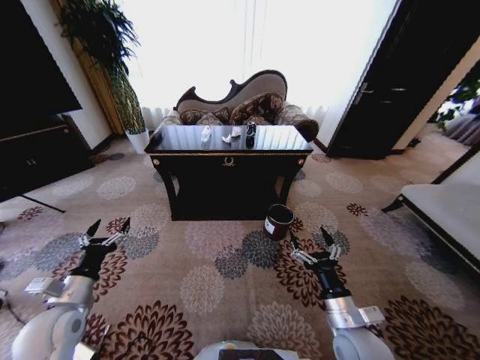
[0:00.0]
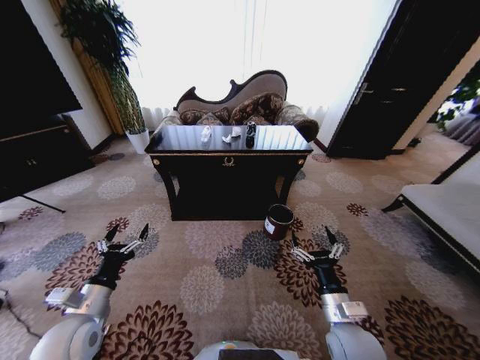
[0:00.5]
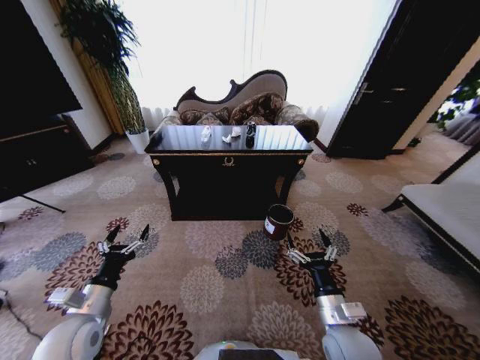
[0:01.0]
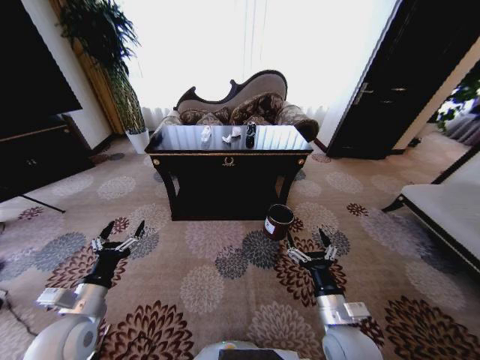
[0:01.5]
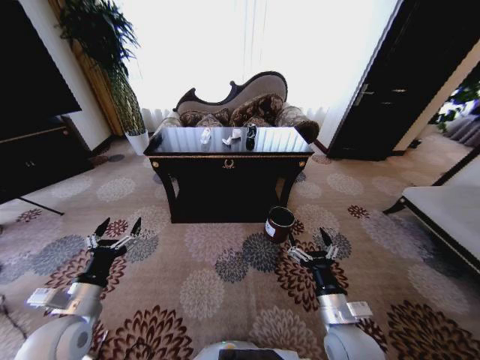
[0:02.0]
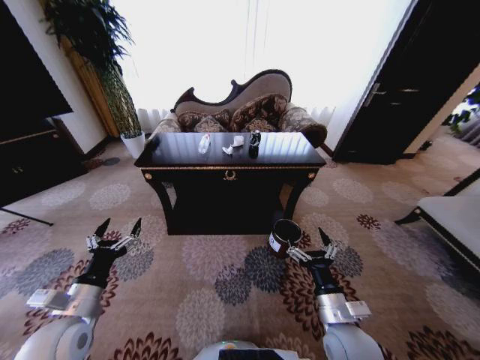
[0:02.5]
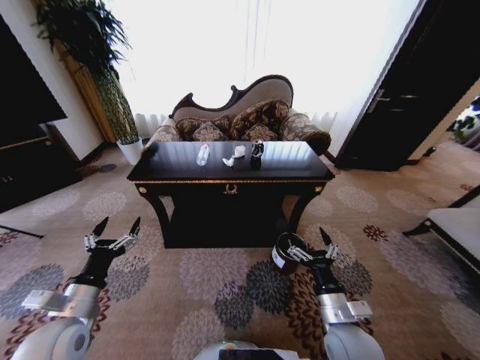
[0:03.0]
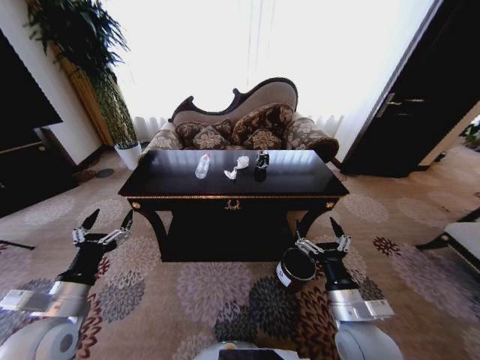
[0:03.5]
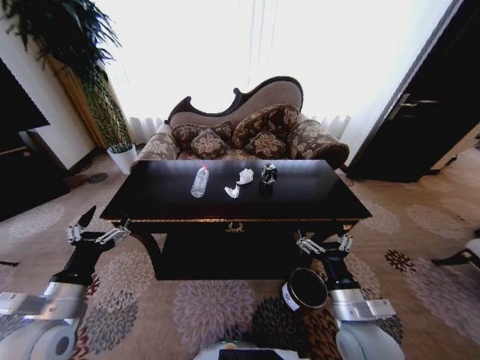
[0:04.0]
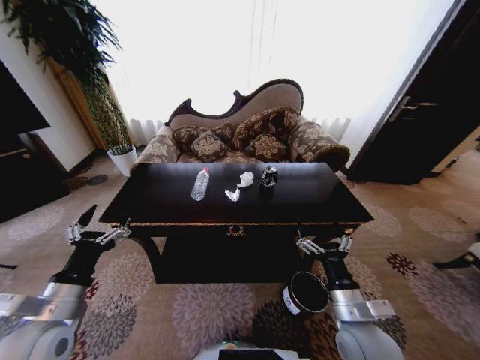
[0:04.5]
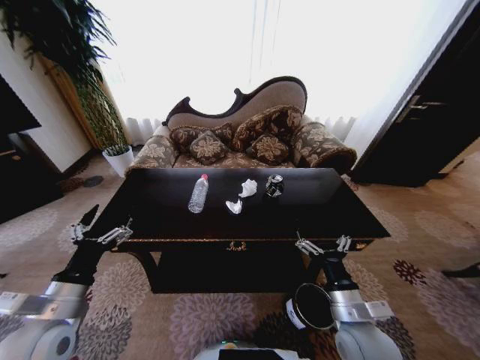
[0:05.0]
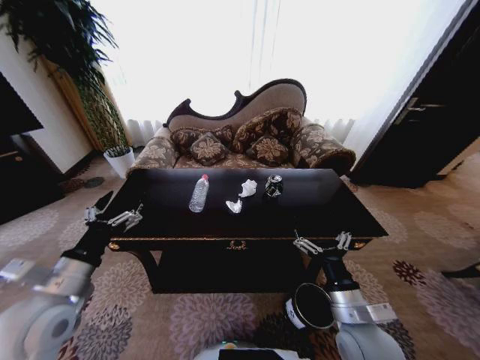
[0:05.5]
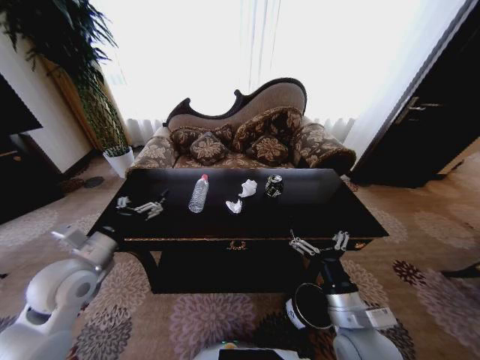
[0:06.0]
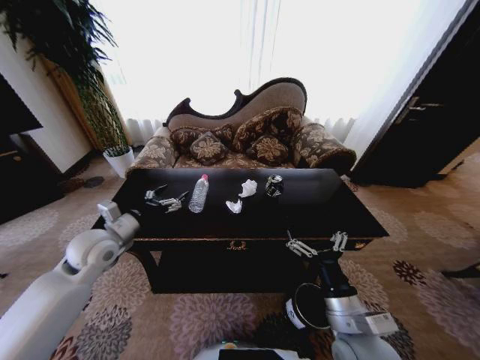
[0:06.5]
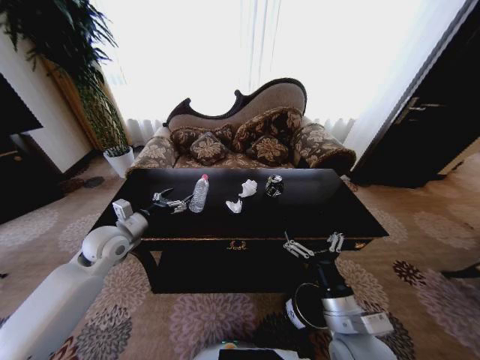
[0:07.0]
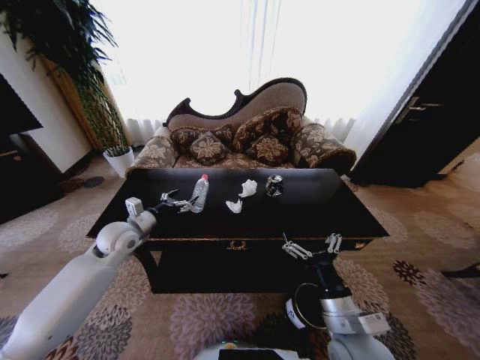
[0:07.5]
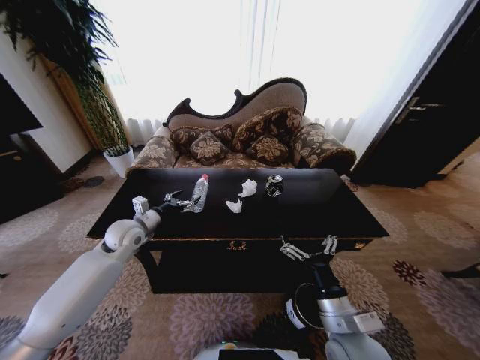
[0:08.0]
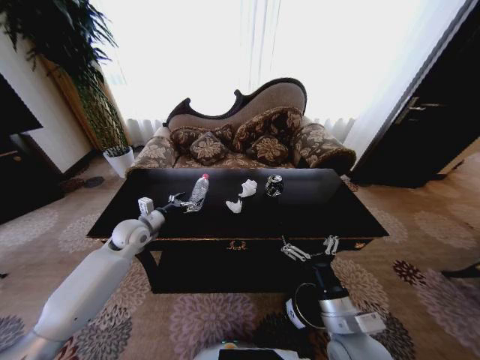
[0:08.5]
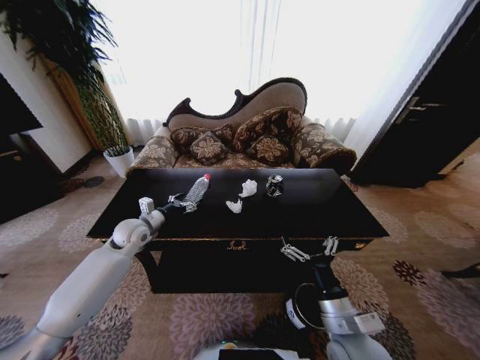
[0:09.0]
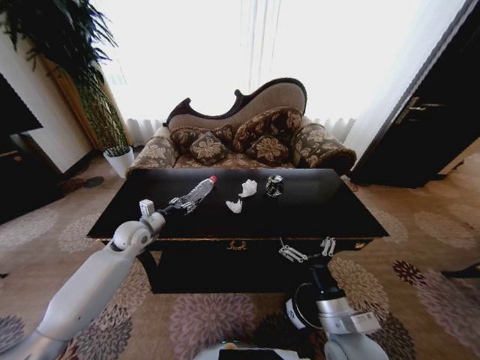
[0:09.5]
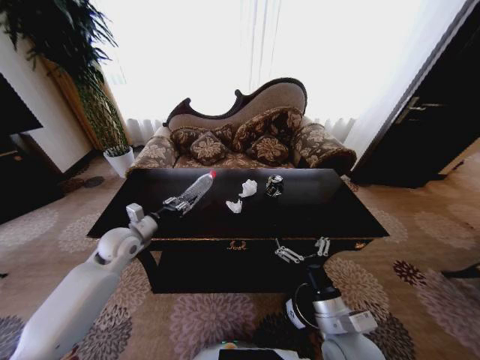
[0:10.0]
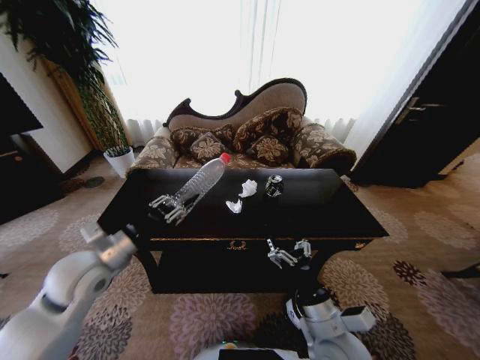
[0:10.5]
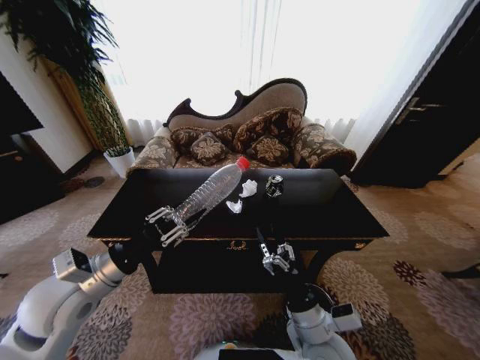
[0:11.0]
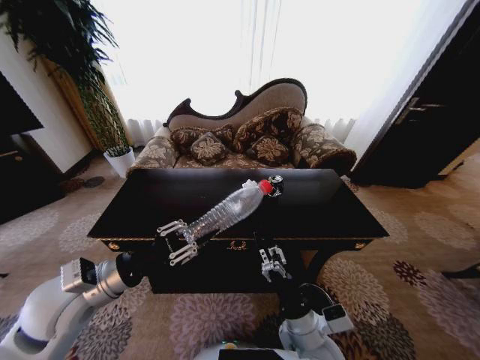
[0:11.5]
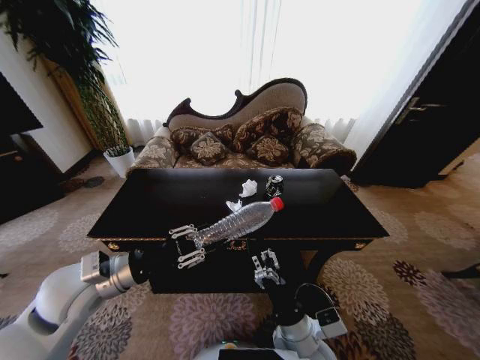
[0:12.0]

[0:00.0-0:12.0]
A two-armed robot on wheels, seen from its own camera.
Task of the whole recording: Move to the front of the table and place the trash on the table into the trash bin.
4.0 to 6.0 s: The left gripper moves forward, roughly 10 cm.
6.0 to 8.0 s: The left gripper travels forward by roughly 15 cm.
8.0 to 10.0 s: The left gripper closes its fingers.
10.0 to 12.0 s: The right gripper heads to the left, covering about 5 cm, while the left gripper travels backward and upward by about 15 cm.

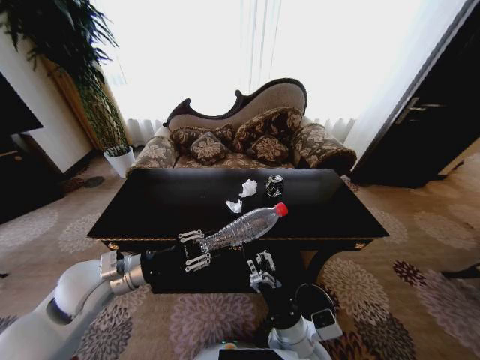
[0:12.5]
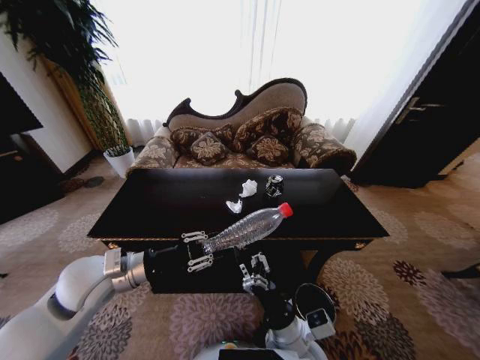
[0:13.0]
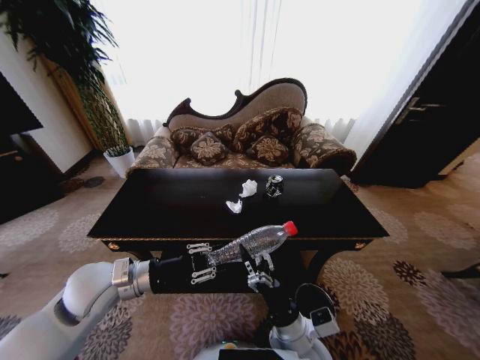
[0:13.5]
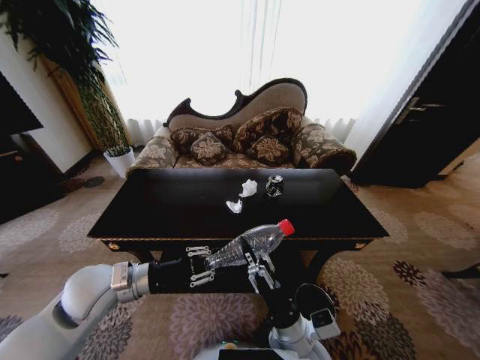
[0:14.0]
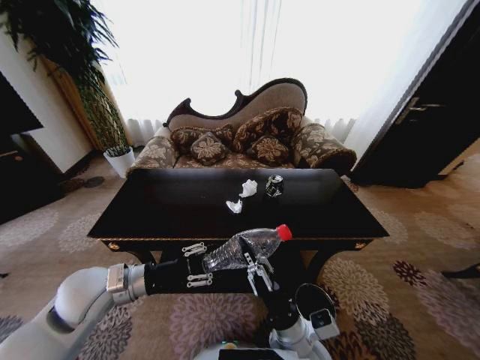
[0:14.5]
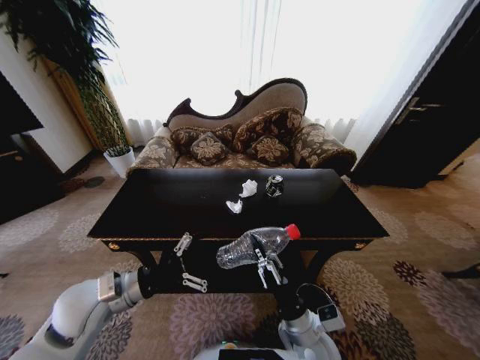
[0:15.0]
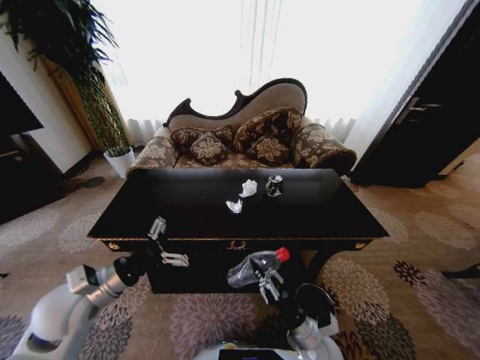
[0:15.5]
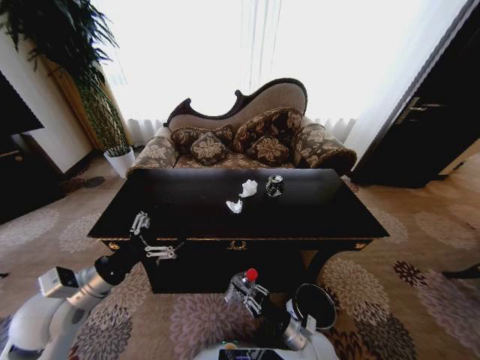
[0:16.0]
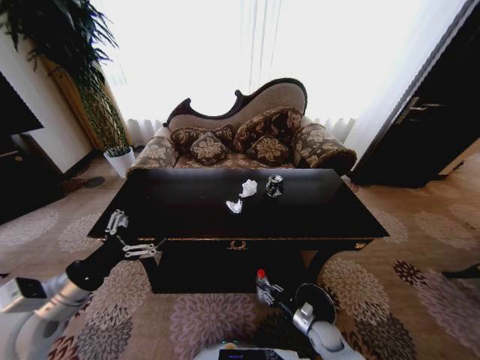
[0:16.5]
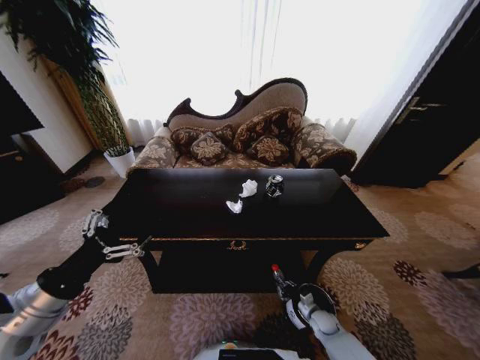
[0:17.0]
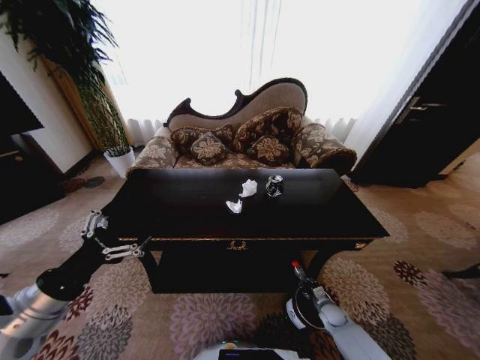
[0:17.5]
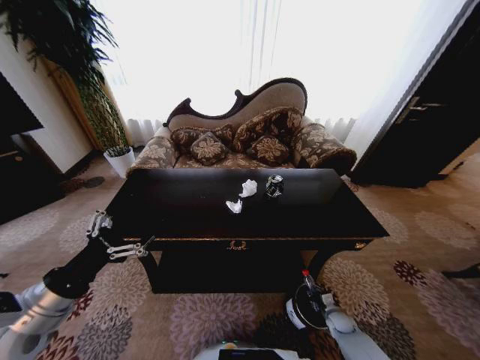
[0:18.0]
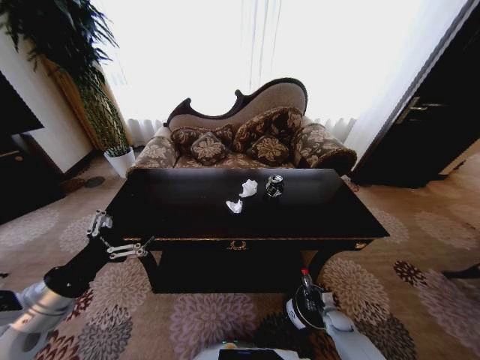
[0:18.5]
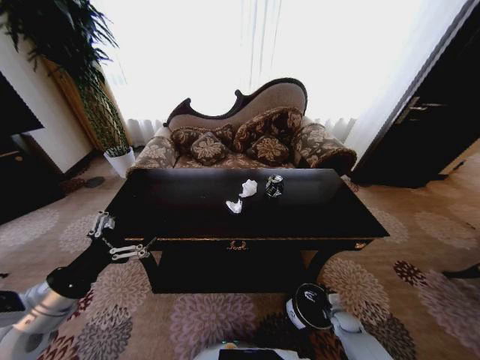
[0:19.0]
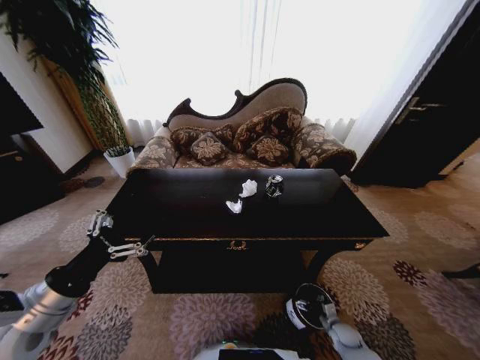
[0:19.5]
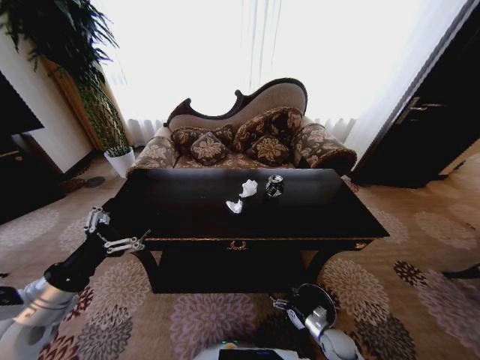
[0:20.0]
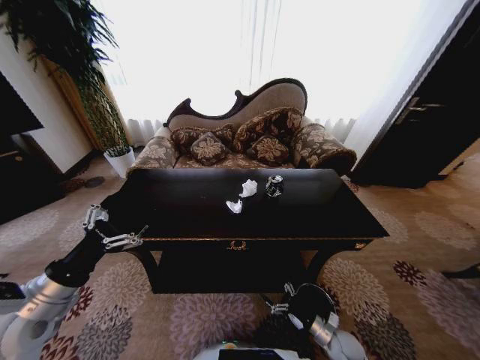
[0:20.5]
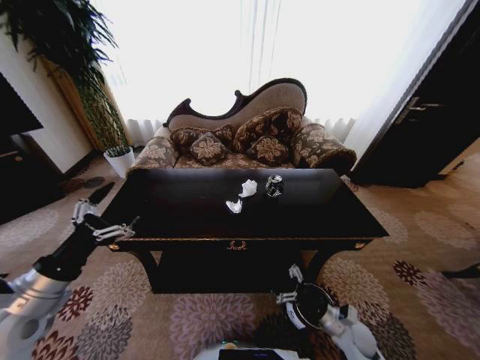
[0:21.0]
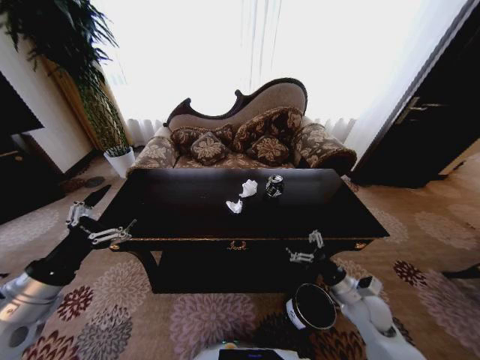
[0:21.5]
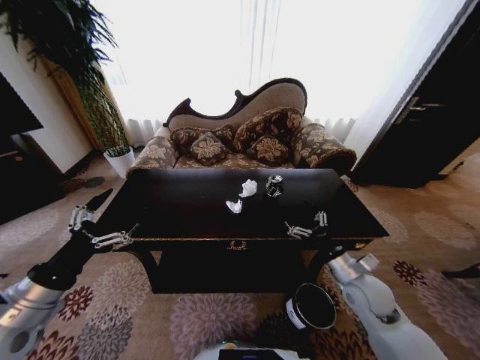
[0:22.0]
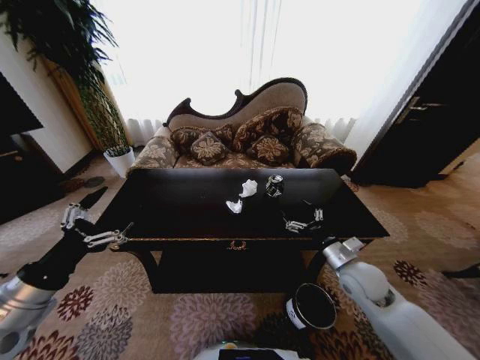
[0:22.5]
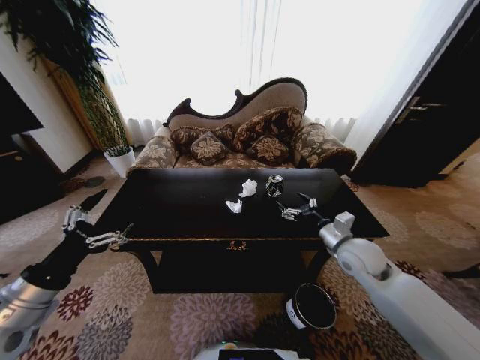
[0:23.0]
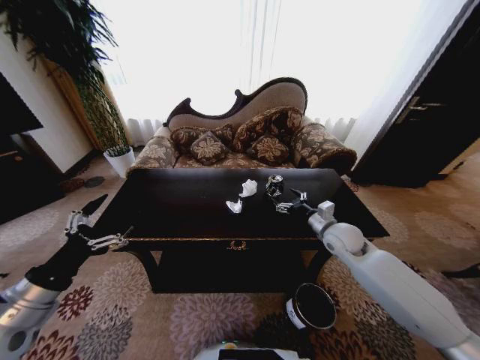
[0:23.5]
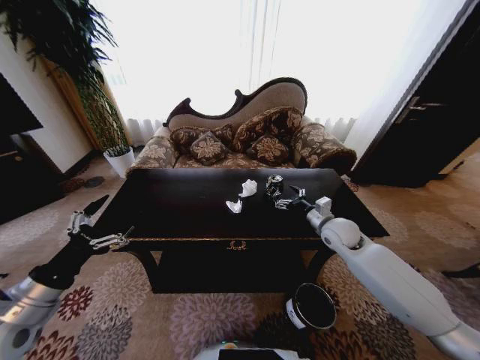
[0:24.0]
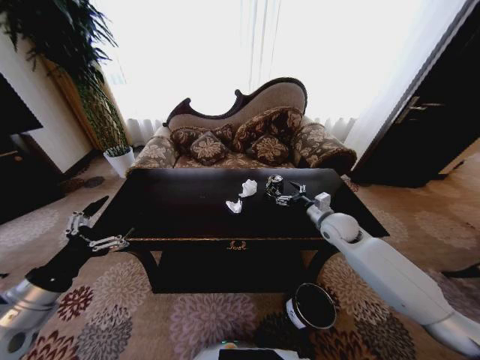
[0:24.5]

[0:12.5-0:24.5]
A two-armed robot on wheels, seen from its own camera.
Task of the whole recording: Move to the front of the table and place the trash on the table into the trash bin.
12.5 to 14.5 s: The right gripper closes up.
14.5 to 16.5 s: The left gripper travels to the left and backward by some 10 cm, and opens up; the right gripper goes about 30 cm downward and to the right.
16.5 to 18.5 s: The right gripper shifts some 10 cm to the right and downward.
18.5 to 20.5 s: The right gripper travels upward, backward and to the left by approximately 15 cm, and opens.
20.5 to 22.5 s: The right gripper travels upward and forward by approximately 25 cm.
22.5 to 24.5 s: The right gripper is displaced forward by about 15 cm.

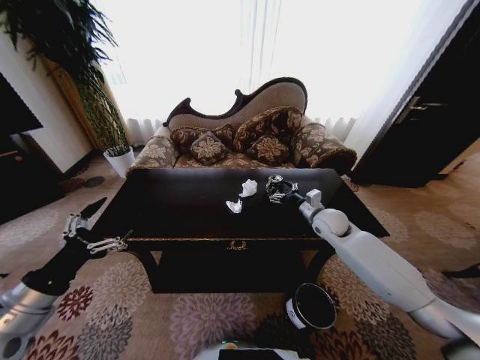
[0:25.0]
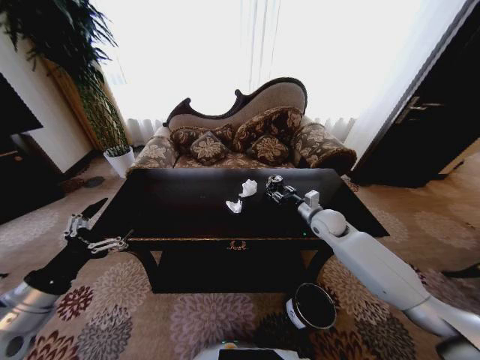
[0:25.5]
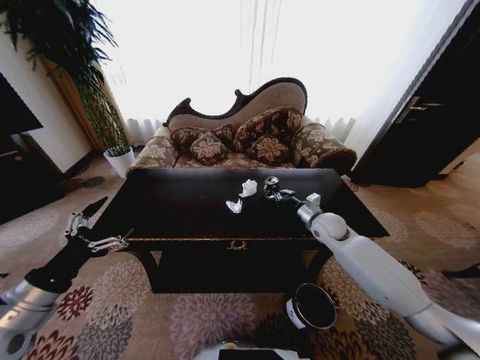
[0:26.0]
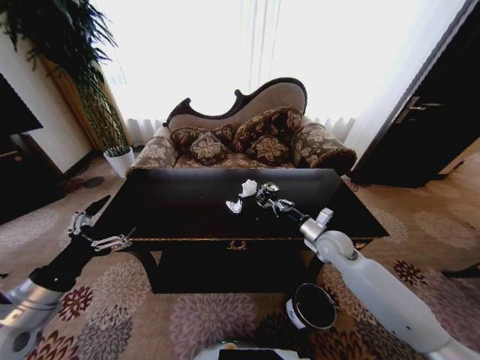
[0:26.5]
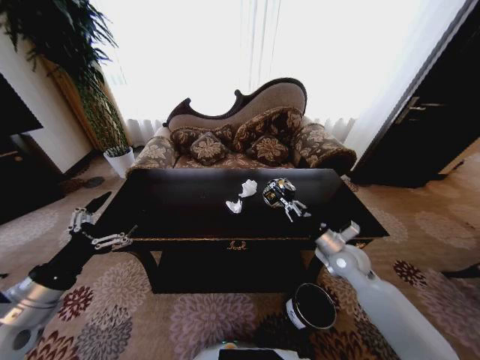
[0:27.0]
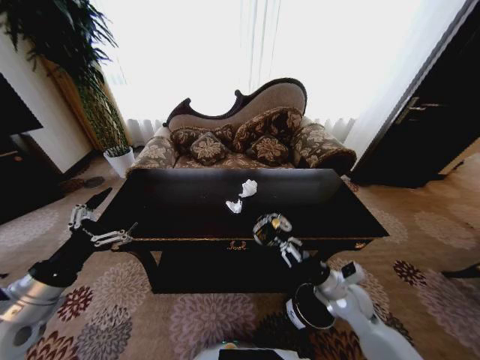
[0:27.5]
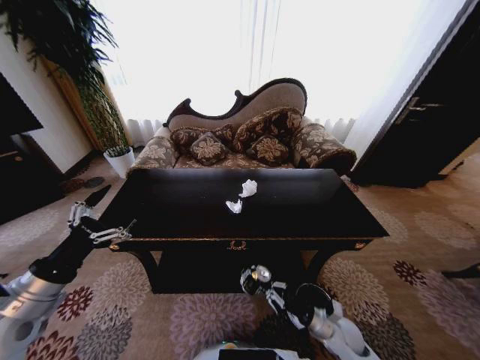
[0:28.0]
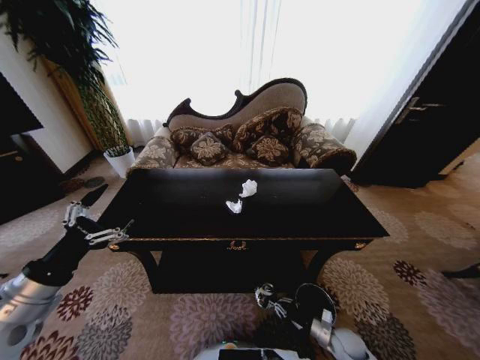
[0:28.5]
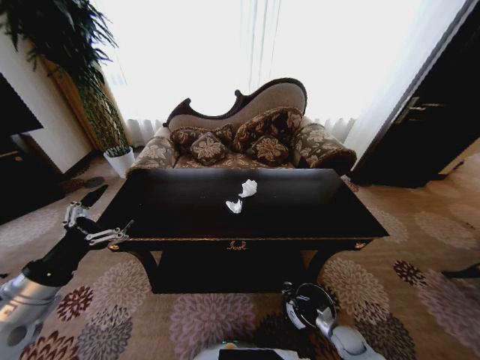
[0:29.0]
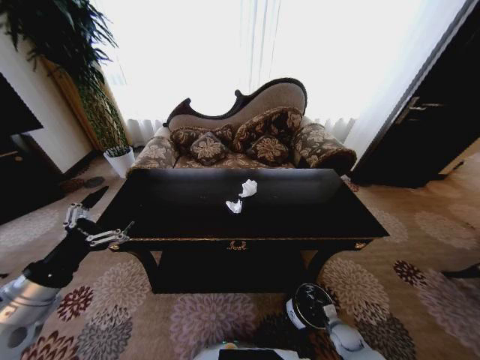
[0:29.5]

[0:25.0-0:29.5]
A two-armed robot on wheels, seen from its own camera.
Task of the whole recording: Move to the front of the table and place the trash on the table into the trash bin.
25.0 to 27.0 s: The right gripper goes roughly 10 cm backward, and closes up.
27.0 to 29.5 s: The right gripper is displaced downward and backward by roughly 35 cm.
